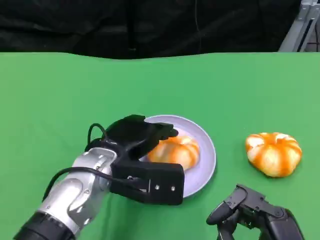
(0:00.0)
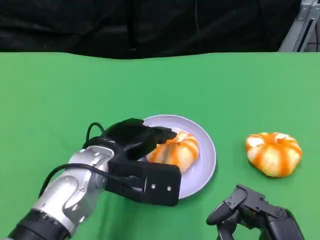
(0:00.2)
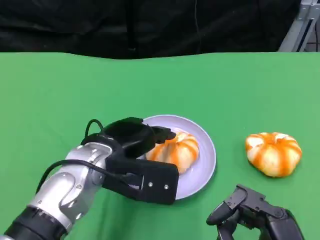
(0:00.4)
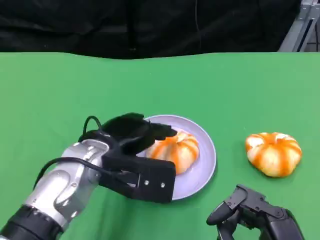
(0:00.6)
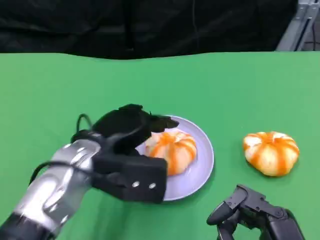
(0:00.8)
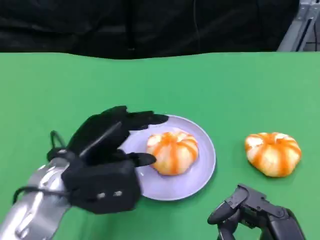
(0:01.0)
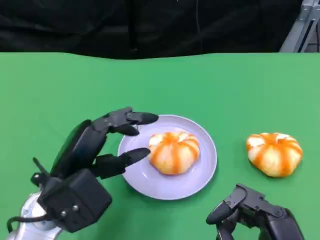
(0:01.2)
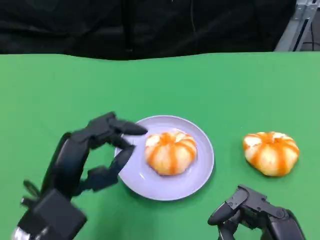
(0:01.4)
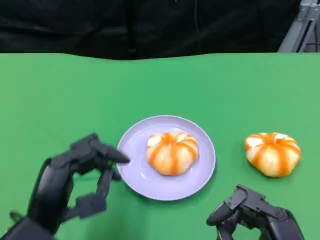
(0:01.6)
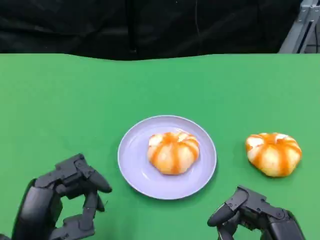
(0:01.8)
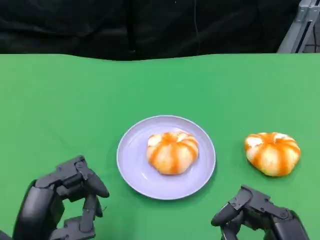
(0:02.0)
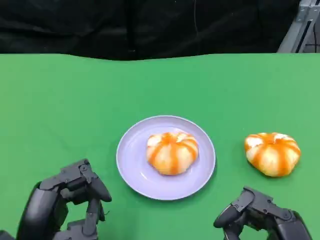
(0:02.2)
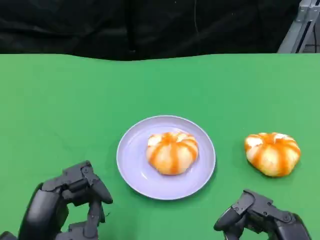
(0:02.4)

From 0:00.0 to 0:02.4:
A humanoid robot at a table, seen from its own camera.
Task of the whole recording: Grasp the bread from the table and place it into the plate.
From 0:00.0 to 0:01.2: The left hand goes approximately 10 cm to the left and backward.
From 0:01.2 to 0:02.4: The left hand moves backward, some 10 cm.

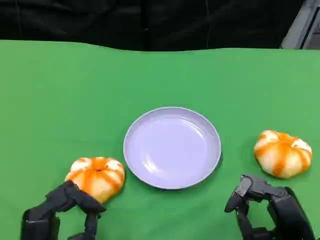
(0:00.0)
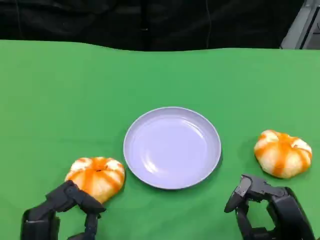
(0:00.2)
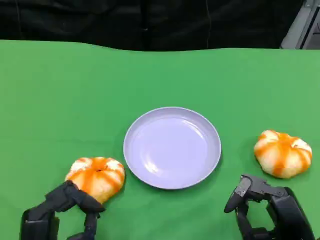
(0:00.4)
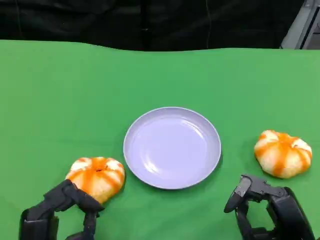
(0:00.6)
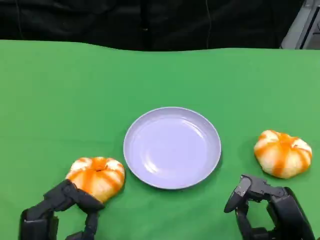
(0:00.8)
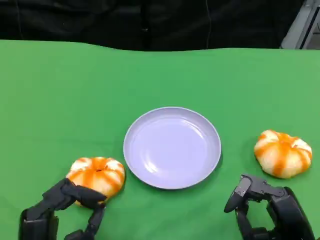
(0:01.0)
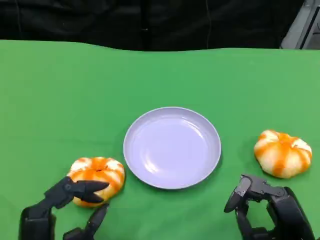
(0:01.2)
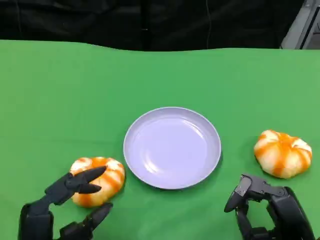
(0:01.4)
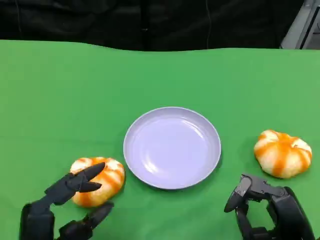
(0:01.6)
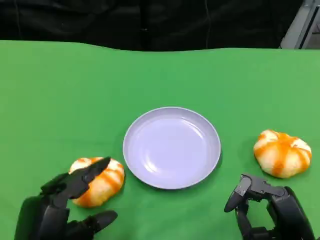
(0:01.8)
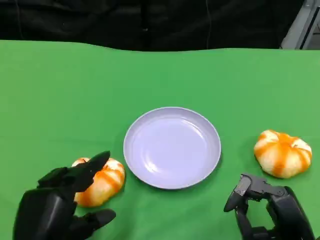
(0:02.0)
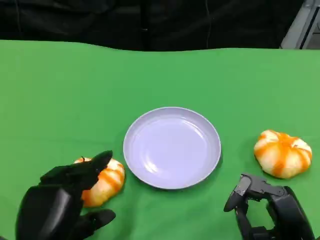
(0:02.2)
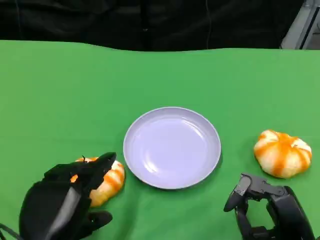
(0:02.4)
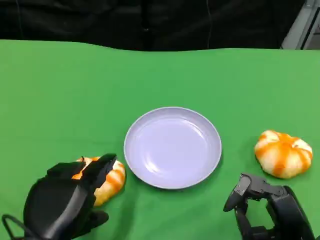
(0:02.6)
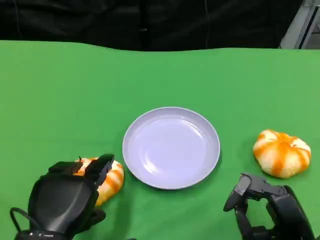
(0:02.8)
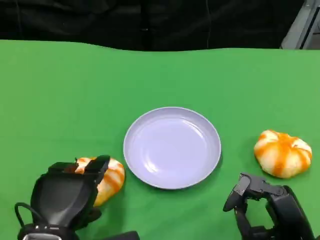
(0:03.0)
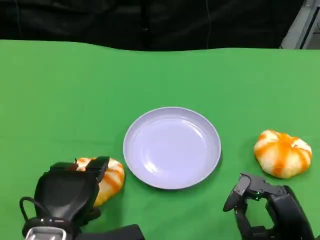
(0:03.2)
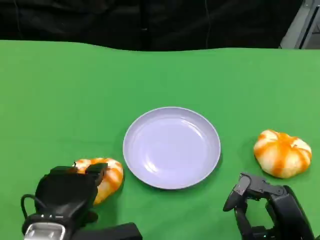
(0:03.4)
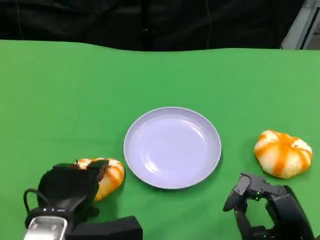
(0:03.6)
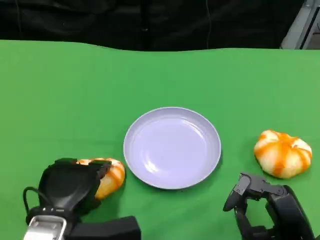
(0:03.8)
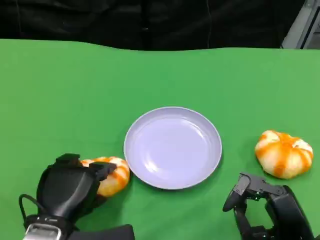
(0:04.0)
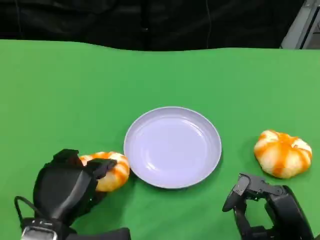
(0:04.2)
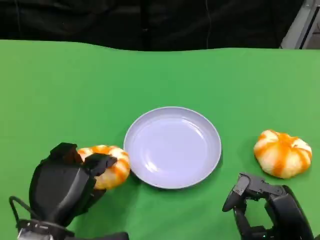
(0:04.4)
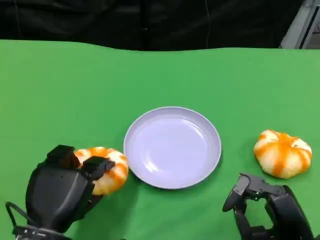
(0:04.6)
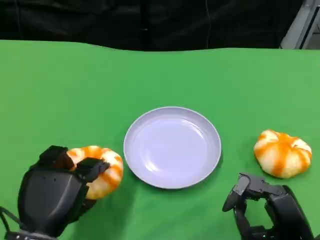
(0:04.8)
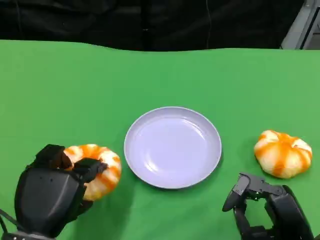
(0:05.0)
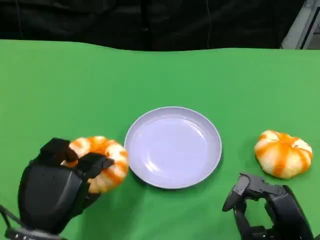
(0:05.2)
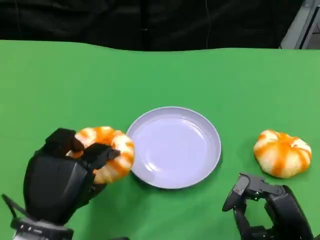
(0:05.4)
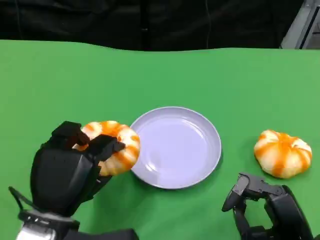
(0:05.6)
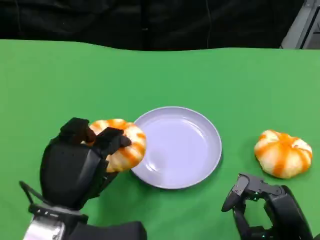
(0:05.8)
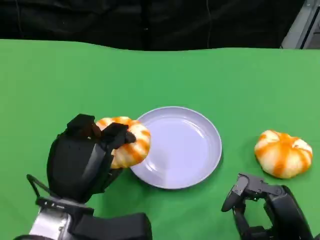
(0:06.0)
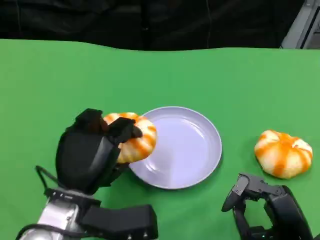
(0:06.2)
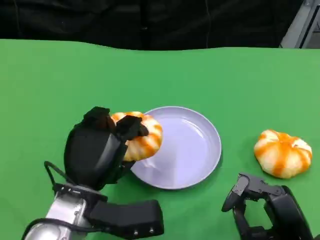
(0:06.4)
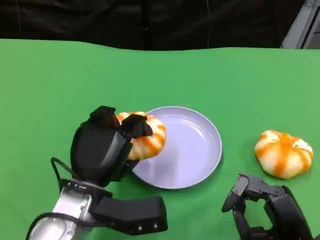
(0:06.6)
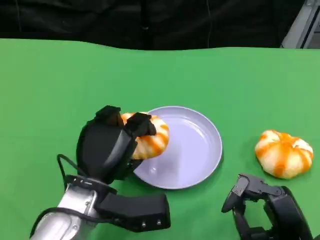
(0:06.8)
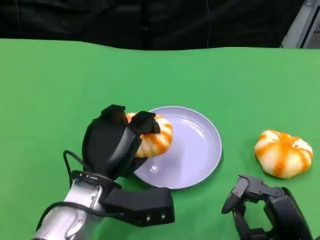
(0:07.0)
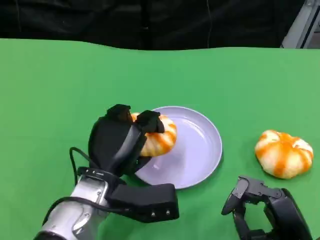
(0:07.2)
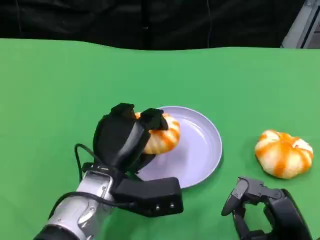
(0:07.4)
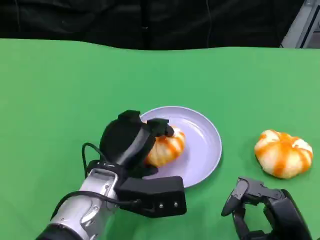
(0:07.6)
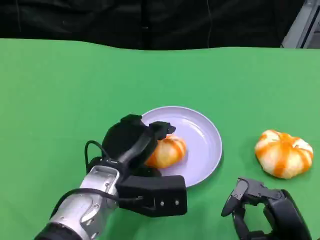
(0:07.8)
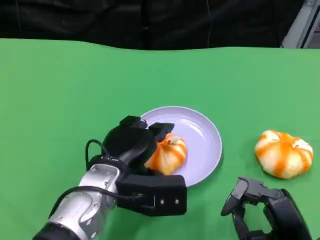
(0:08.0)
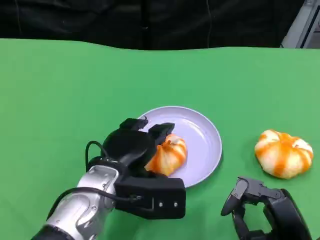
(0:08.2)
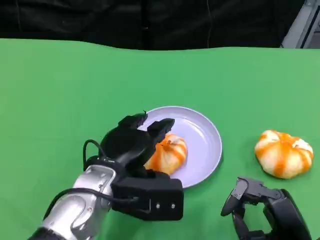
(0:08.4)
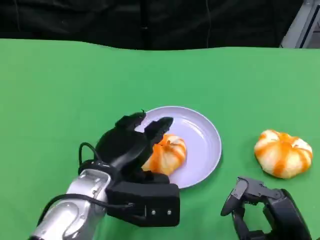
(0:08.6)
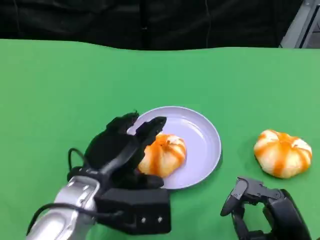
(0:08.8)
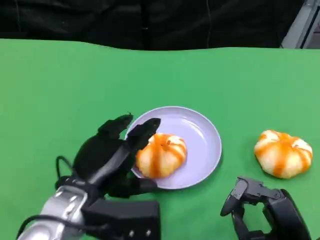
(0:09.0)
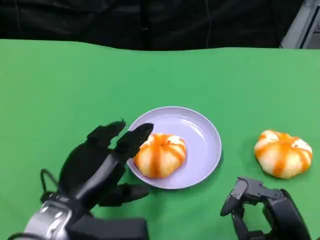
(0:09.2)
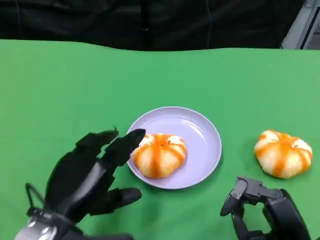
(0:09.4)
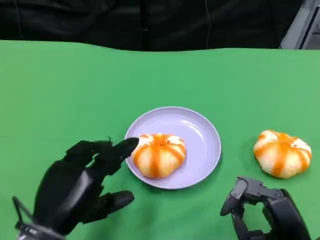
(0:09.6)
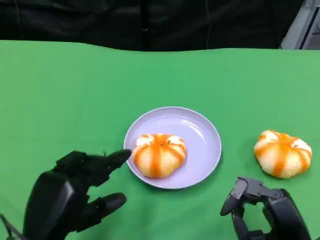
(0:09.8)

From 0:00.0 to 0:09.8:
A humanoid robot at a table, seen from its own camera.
Task of the whole recording: Grasp the bread from the table and place it into the plate.
From 0:00.0 to 0:01.4: The hands make only small movements.
From 0:01.4 to 0:02.8: The left hand shifts by roughly 5 cm.
From 0:02.8 to 0:04.2: The hands stay close to where they were, moving slightly.
From 0:04.2 to 0:05.6: There are only small adjustments of the hands.
From 0:05.6 to 0:07.0: The left hand goes about 10 cm to the right and forward.
From 0:08.4 to 0:09.8: The left hand goes approximately 15 cm backward and to the left.

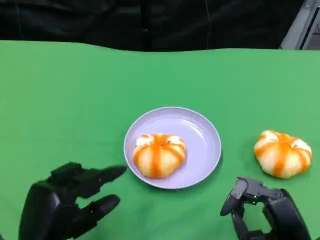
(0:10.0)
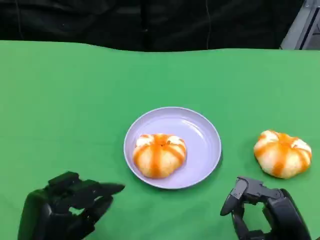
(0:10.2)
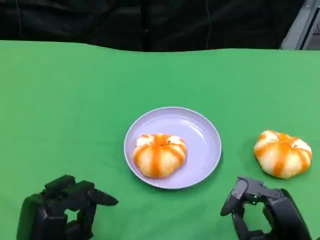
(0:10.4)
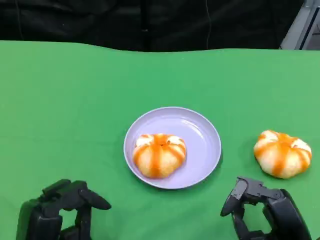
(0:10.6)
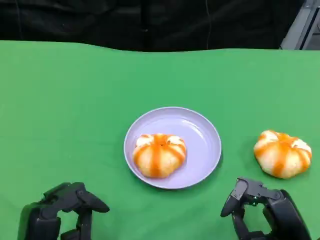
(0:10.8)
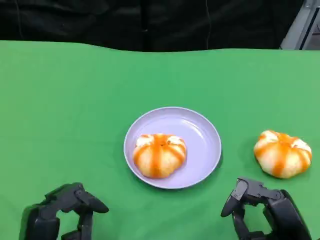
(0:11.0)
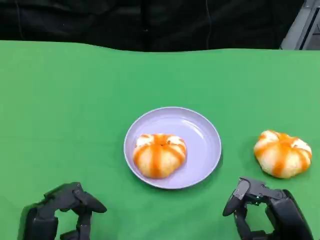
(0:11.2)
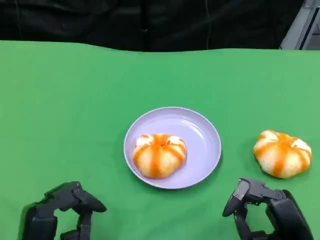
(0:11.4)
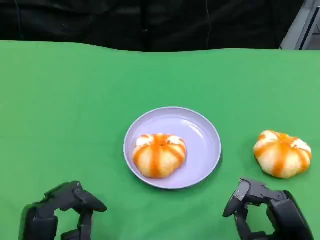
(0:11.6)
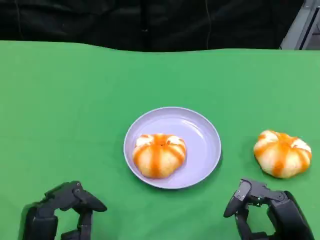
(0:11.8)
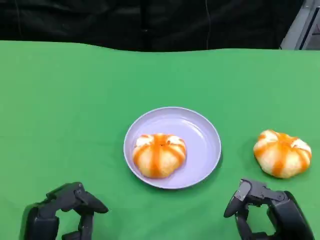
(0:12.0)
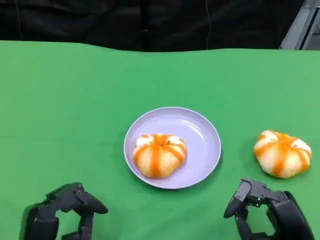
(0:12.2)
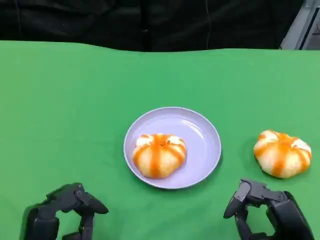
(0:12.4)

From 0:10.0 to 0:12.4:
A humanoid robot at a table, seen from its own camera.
Task of the whole recording: Grasp the bread from the table and place it into the plate.
From 0:10.0 to 0:11.2: The hands move only a little.
From 0:11.2 to 0:12.4: Neither hand changes place.

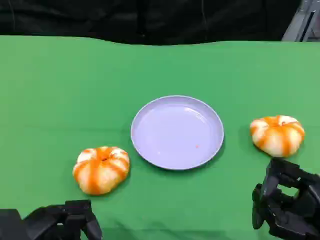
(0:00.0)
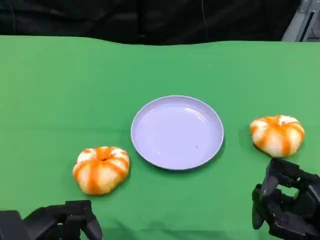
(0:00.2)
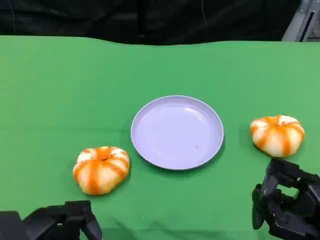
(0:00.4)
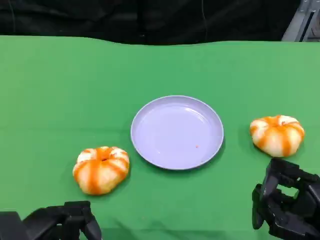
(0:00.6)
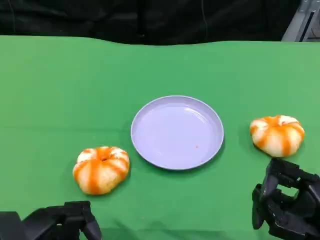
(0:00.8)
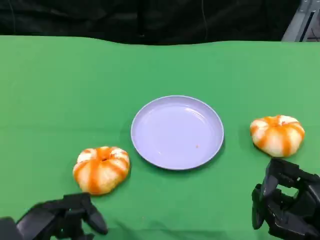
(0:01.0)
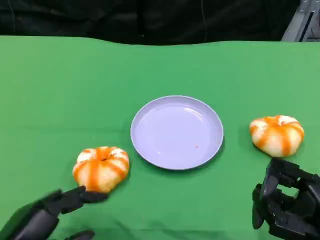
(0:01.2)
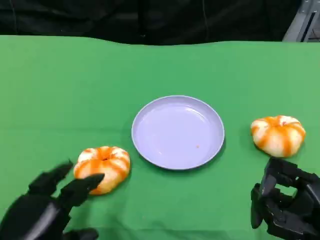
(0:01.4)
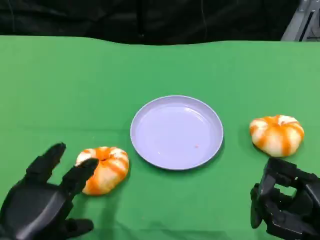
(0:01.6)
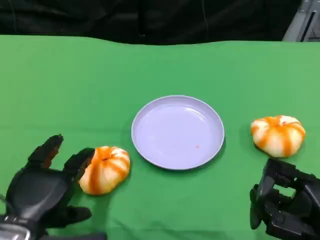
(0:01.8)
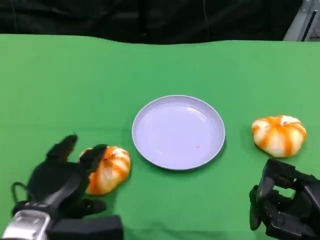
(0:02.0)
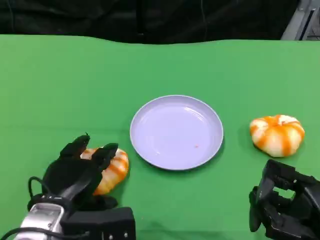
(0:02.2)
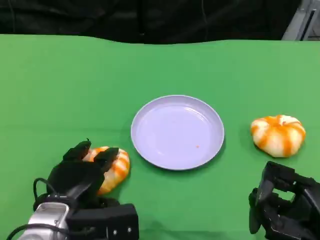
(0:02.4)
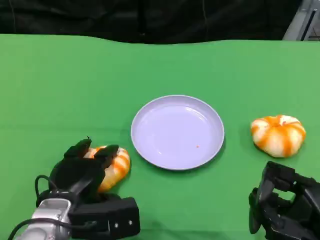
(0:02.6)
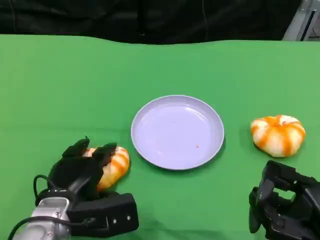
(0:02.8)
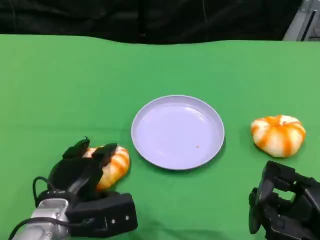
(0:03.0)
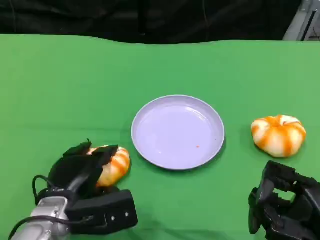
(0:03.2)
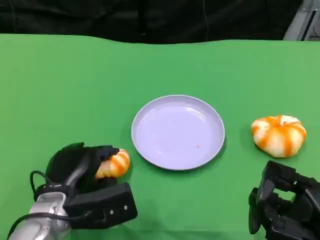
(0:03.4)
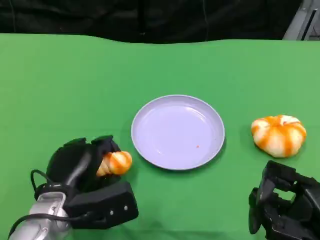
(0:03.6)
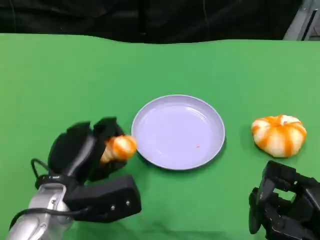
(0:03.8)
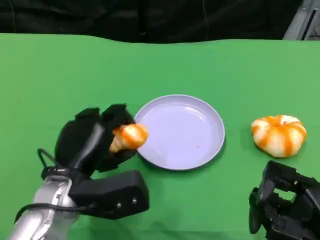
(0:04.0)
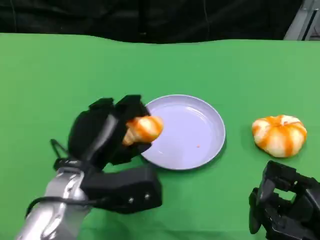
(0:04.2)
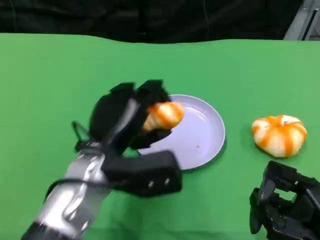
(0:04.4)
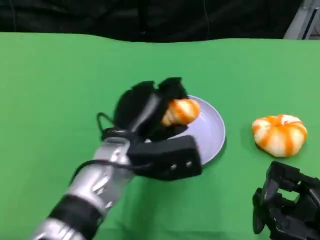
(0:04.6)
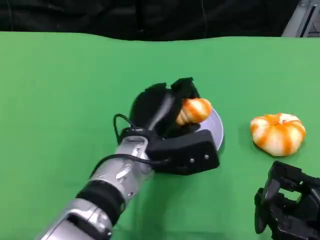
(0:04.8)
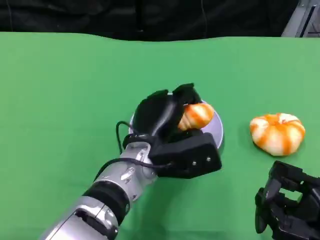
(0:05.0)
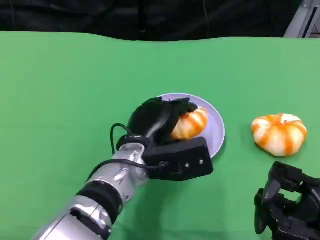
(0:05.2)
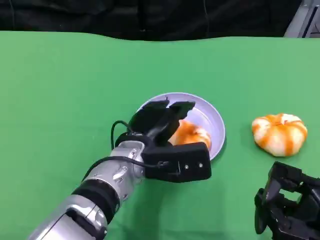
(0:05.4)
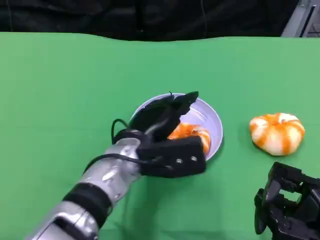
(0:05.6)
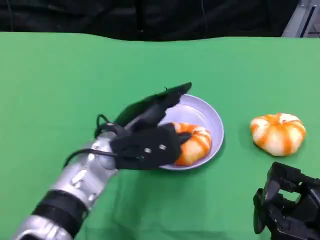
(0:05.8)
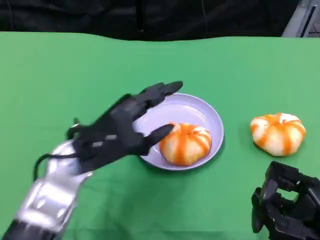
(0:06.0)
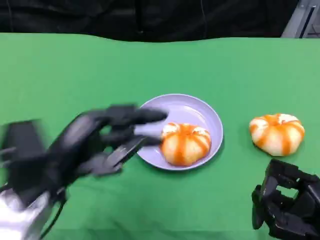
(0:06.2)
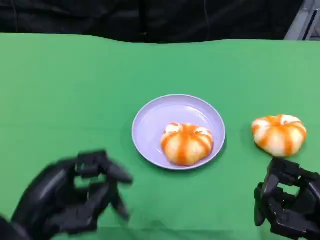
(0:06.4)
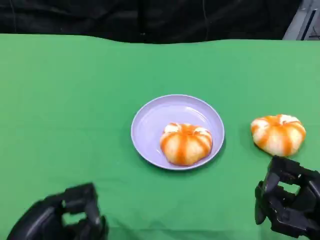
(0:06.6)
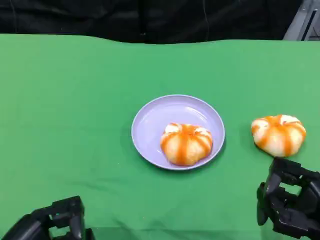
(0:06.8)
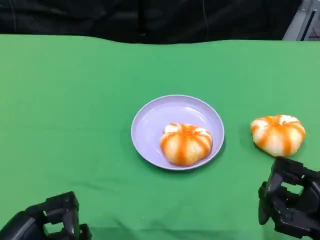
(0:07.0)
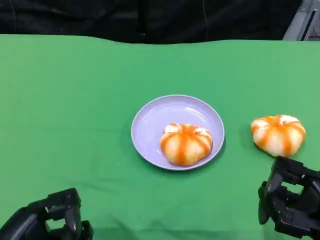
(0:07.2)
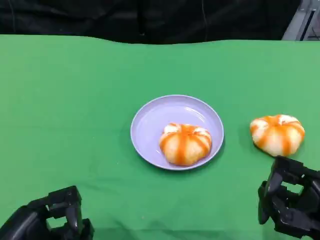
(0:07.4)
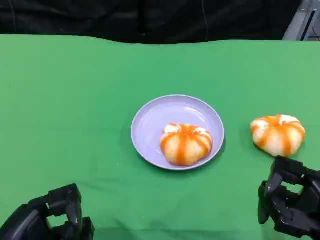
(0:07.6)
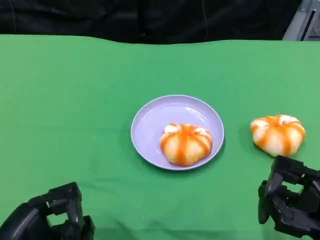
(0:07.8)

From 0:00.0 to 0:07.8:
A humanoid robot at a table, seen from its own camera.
Task of the whole recording: Grasp the bread from the table and place it into the plate.
From 0:01.6 to 0:03.2: The left hand heads forward and to the right, covering some 10 cm.
From 0:03.2 to 0:04.6: The left hand moves to the right and upward, roughly 15 cm.
From 0:04.6 to 0:06.2: The left hand travels to the left and backward by about 15 cm.
From 0:06.2 to 0:07.8: The left hand moves backward, about 10 cm.
